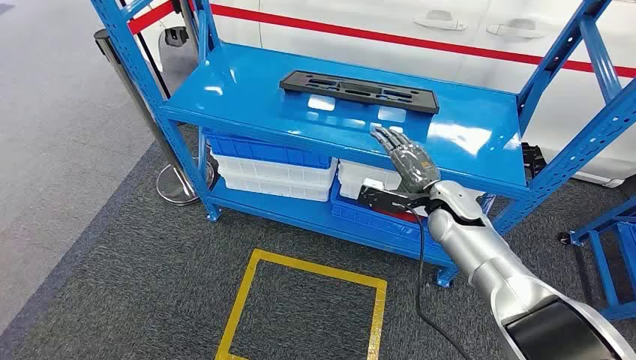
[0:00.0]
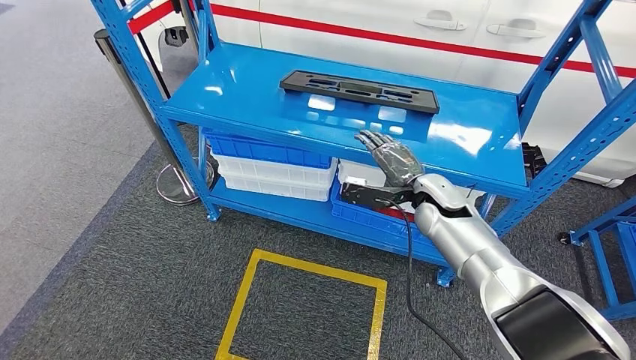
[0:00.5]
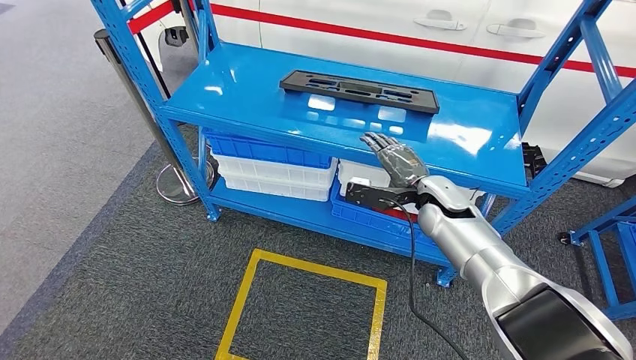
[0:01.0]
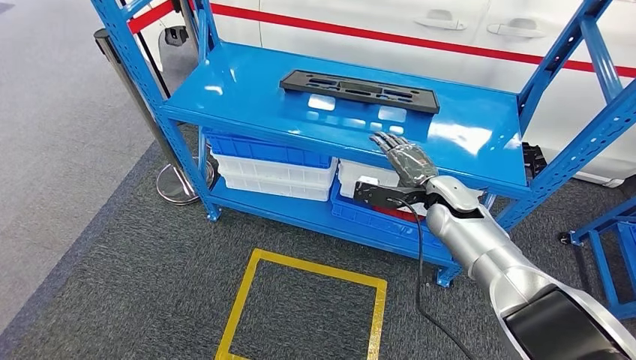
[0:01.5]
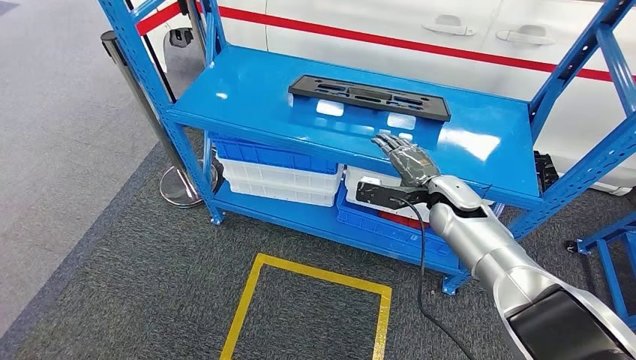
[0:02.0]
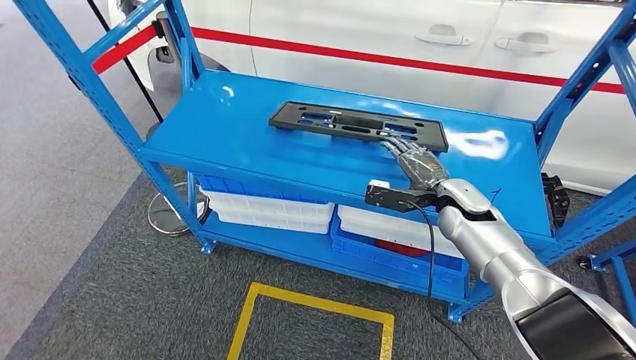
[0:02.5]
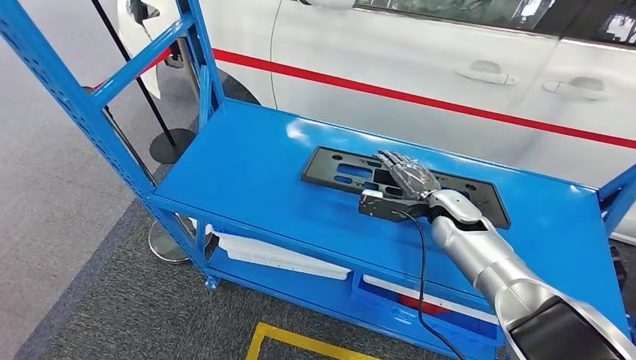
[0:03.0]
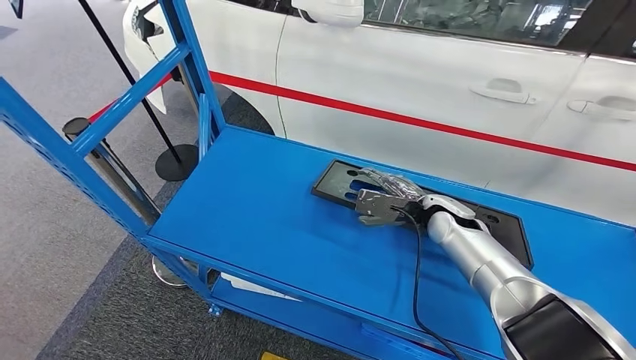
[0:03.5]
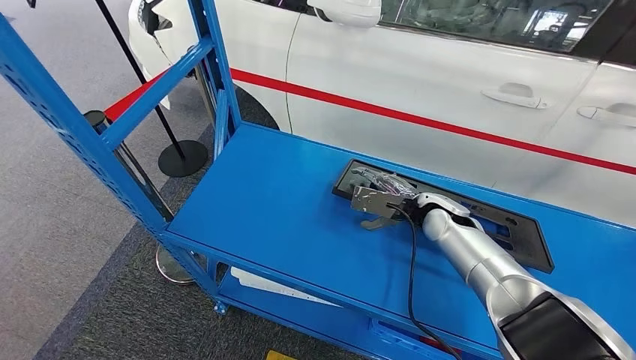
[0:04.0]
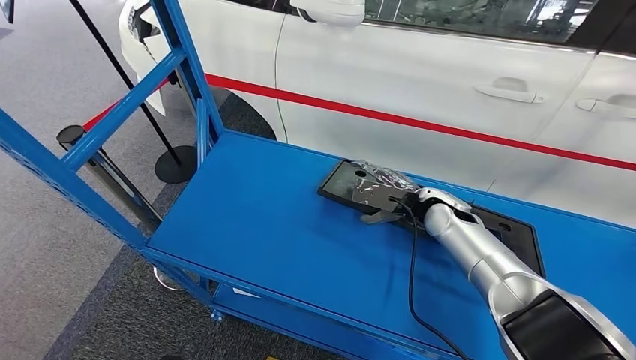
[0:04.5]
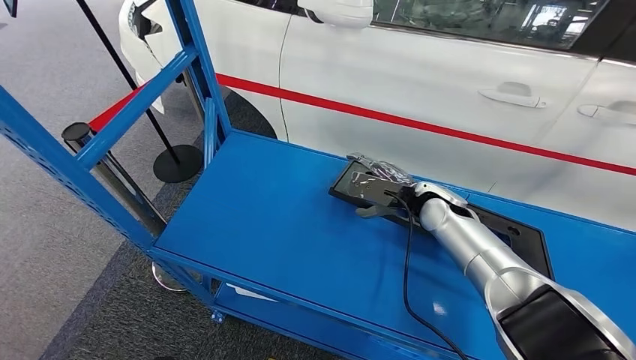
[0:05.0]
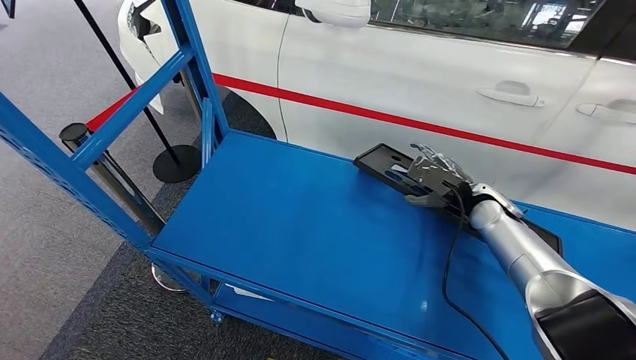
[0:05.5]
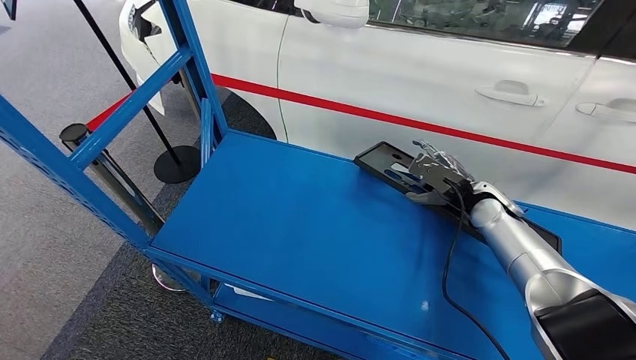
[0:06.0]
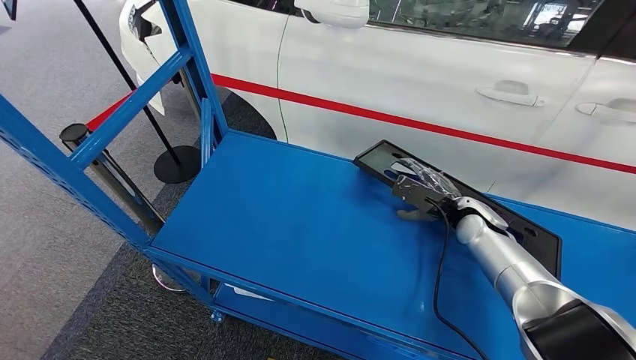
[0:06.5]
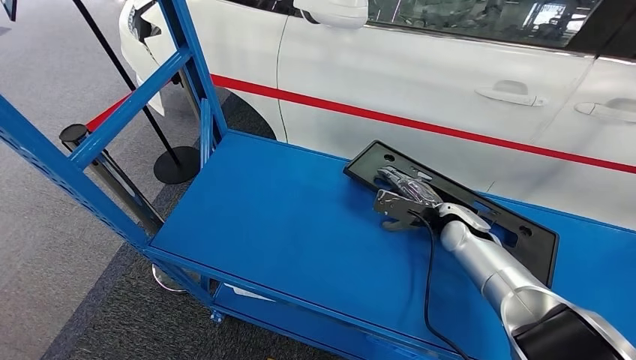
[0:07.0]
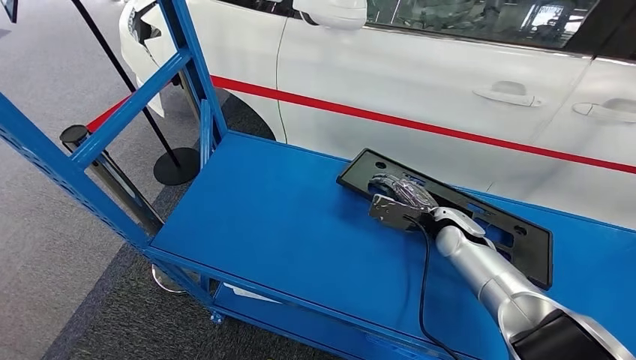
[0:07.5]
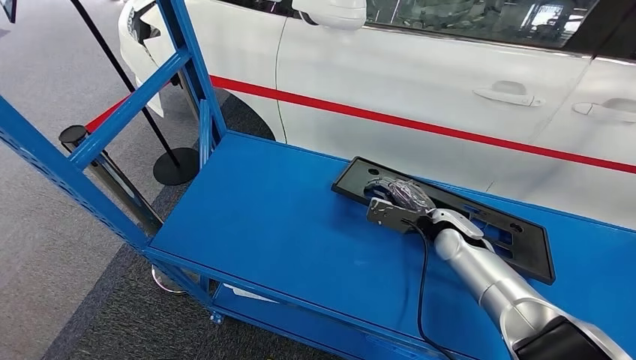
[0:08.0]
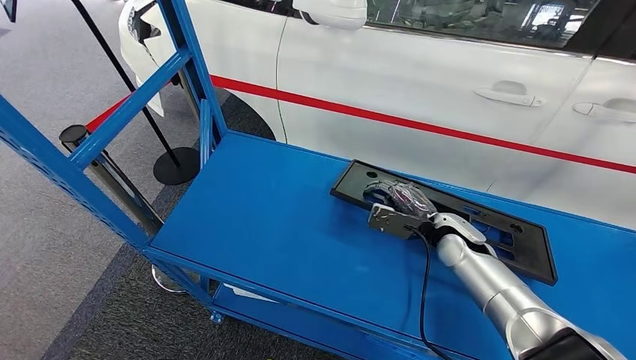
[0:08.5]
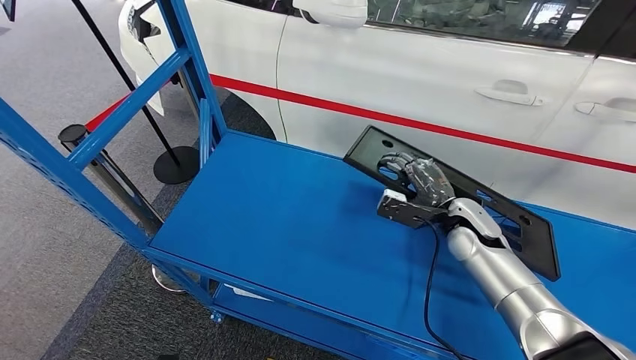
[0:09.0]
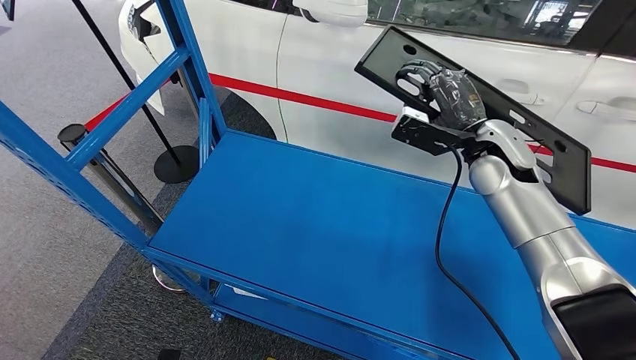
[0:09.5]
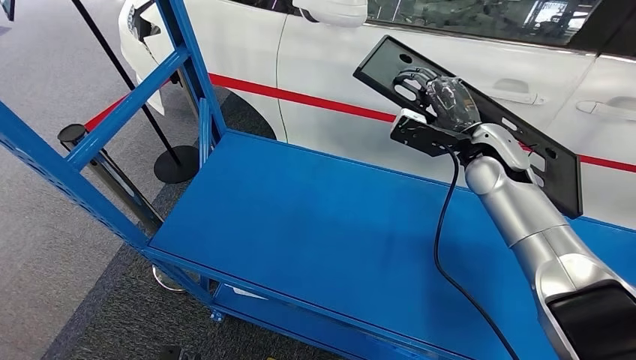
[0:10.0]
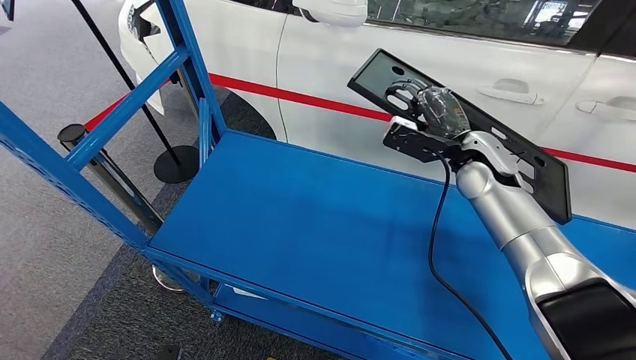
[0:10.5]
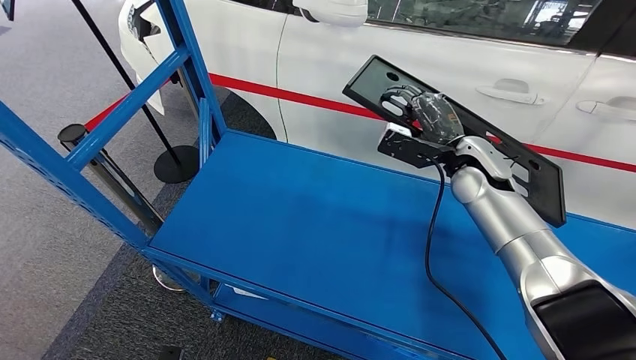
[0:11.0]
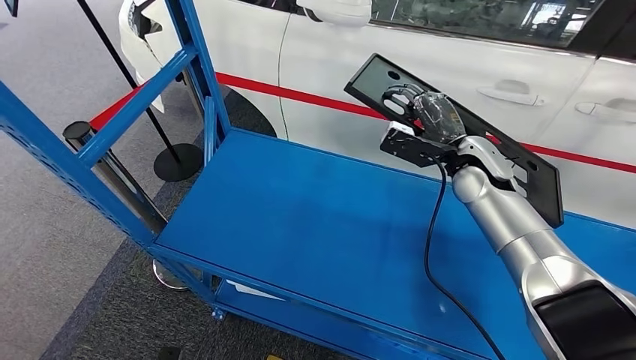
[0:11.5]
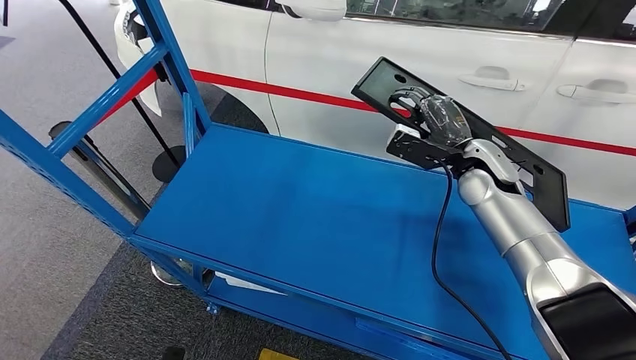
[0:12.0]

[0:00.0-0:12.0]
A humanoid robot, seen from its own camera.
Step, 0:00.0 to 0:09.0: Pick up the large material from the shelf.
0:06.0 to 0:08.0: The right hand goes about 5 cm to the left.

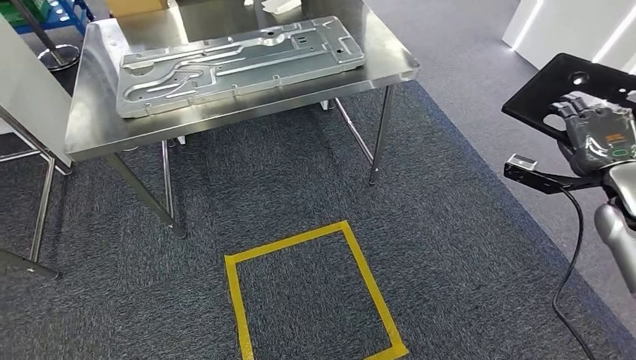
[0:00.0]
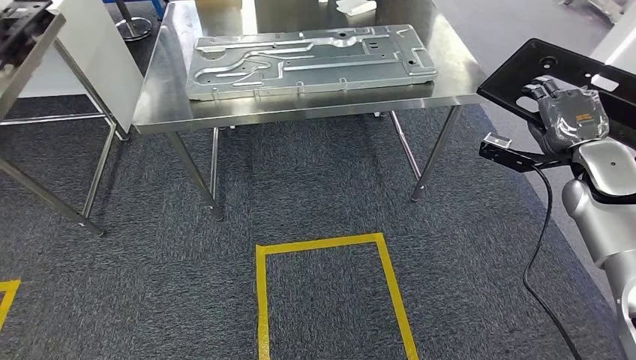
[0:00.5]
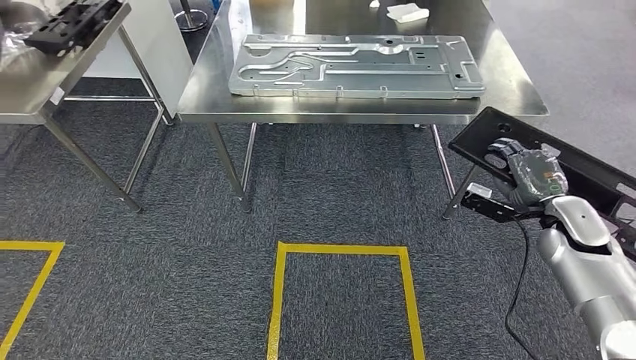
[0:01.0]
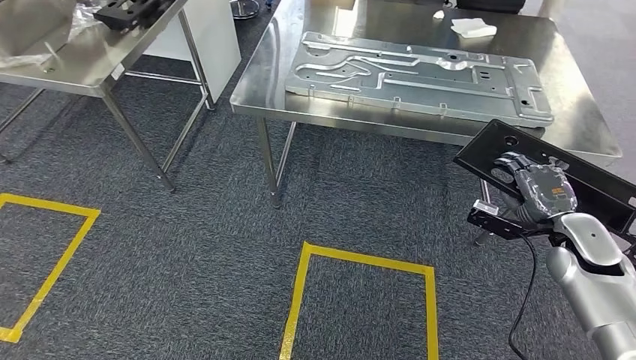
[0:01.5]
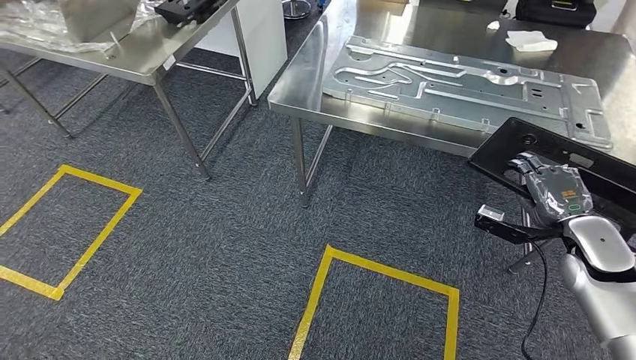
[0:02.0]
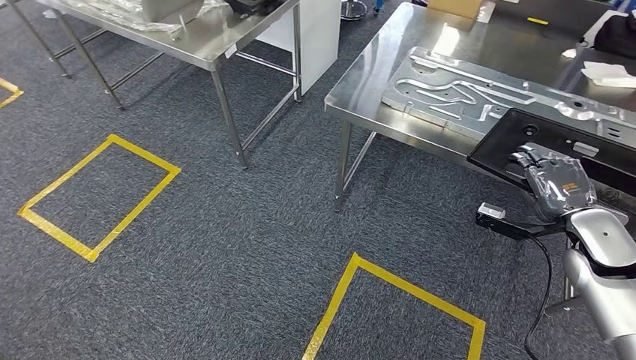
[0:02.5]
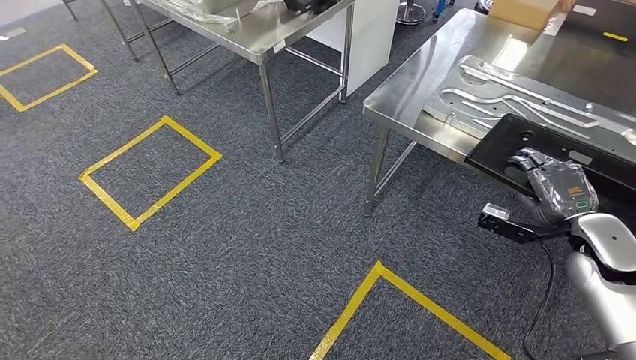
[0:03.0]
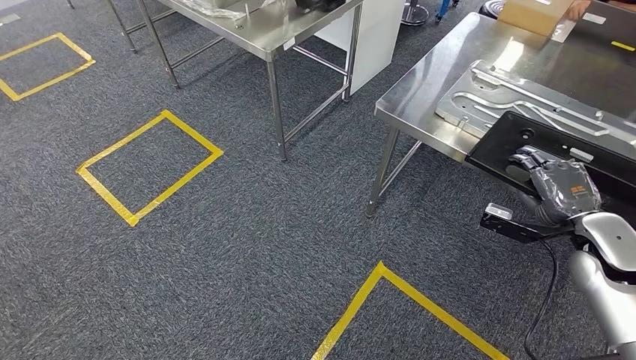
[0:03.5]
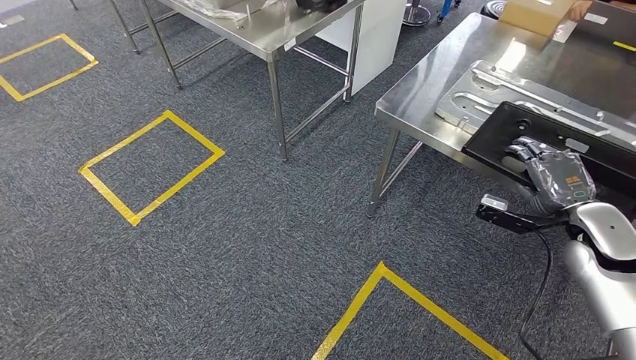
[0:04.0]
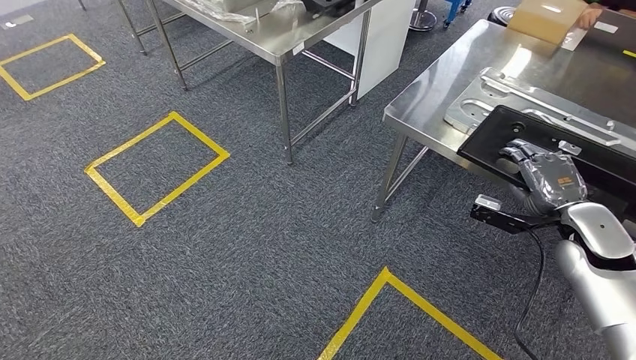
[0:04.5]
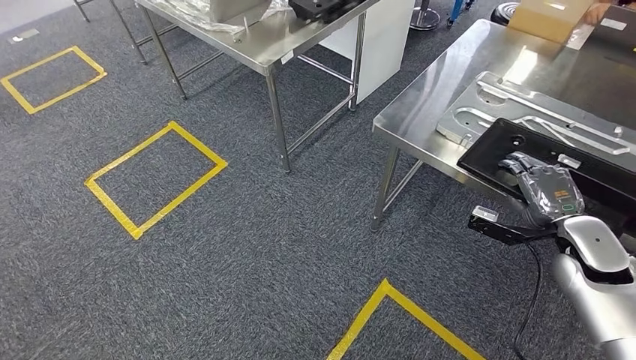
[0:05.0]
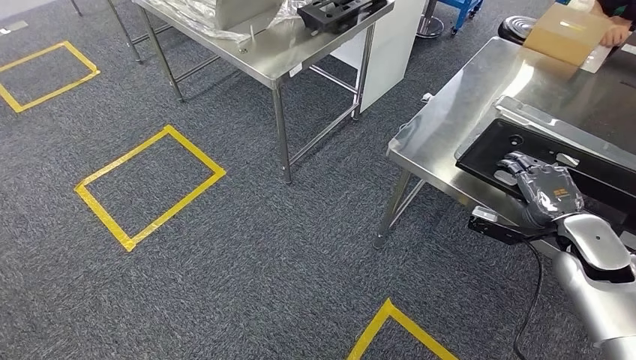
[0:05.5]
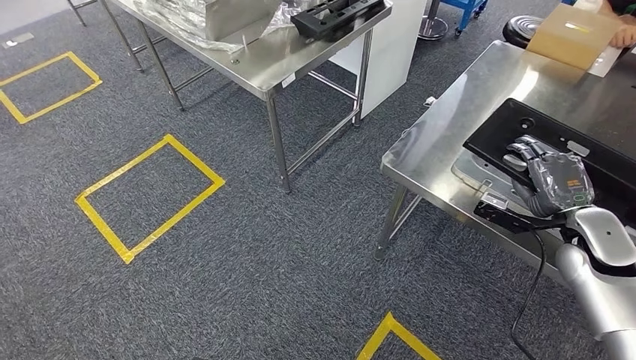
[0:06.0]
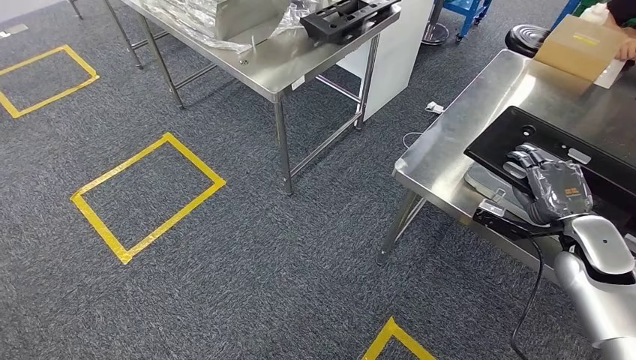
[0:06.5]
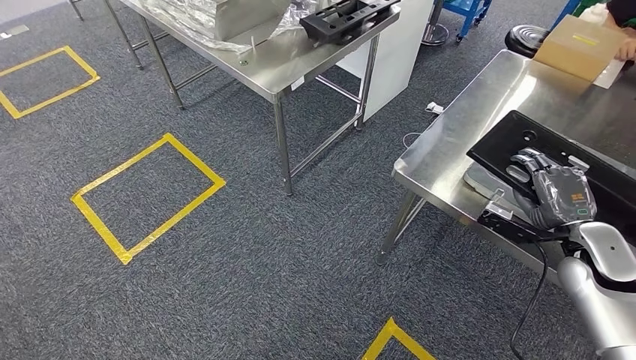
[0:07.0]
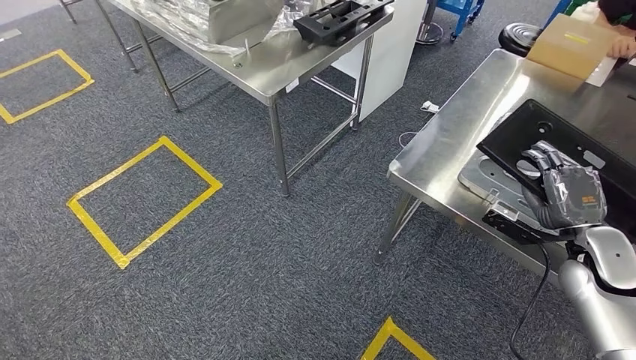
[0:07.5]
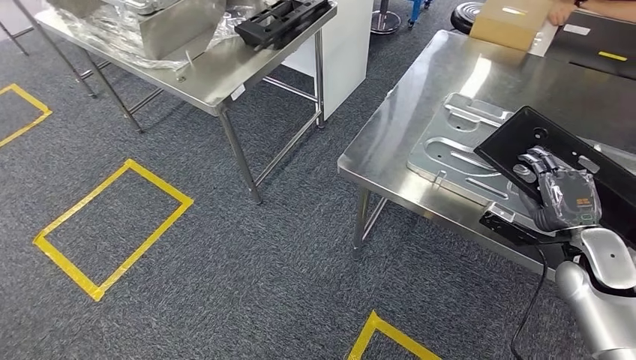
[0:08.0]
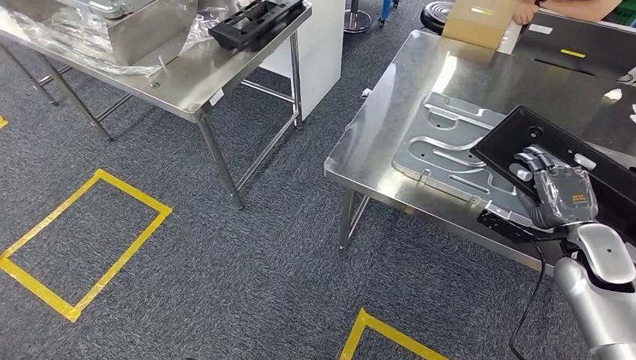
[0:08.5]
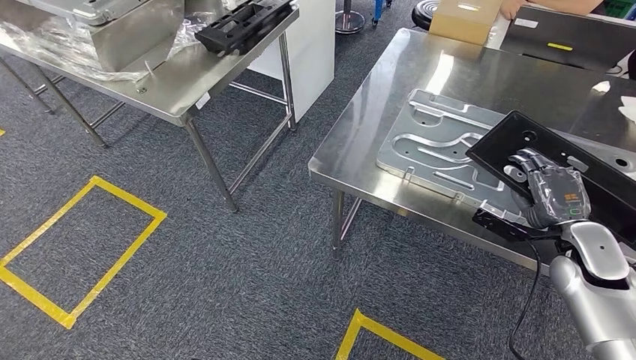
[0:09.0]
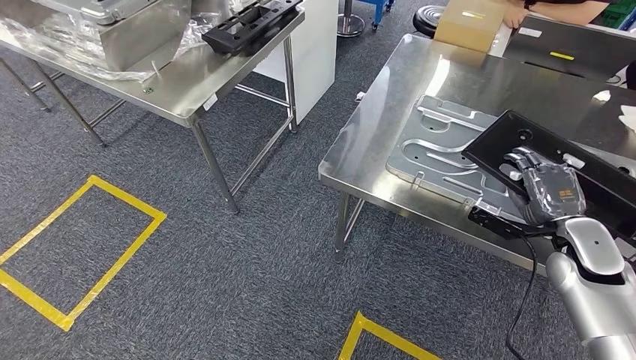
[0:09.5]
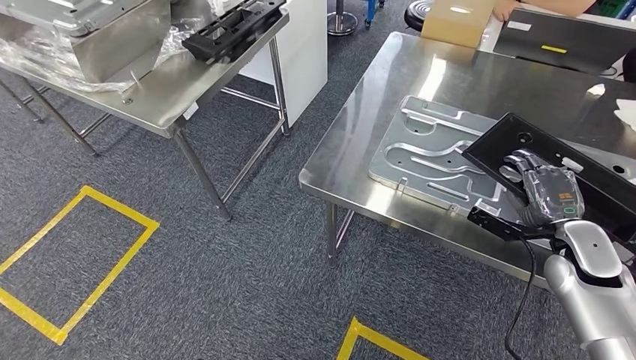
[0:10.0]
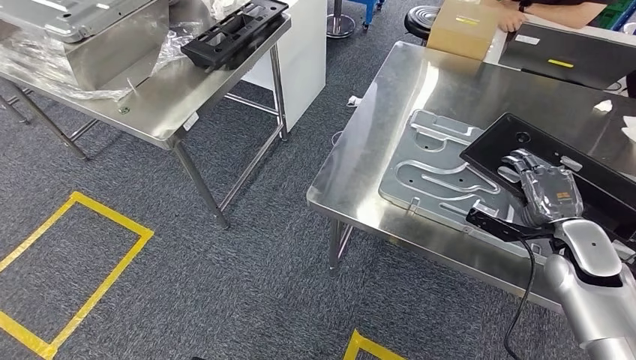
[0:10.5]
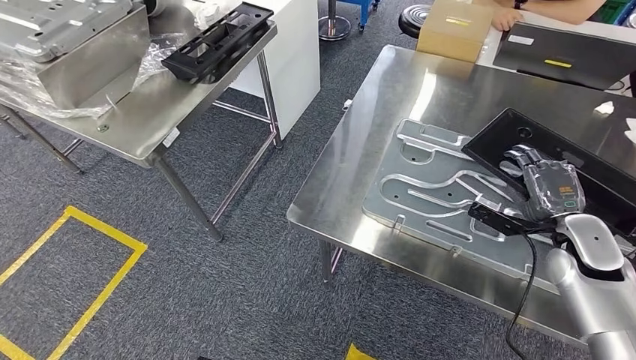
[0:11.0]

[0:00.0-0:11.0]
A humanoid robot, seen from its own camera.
Step, 0:07.5 to 0:10.5: Insert the large material into the corresponding hole on the workbench.
